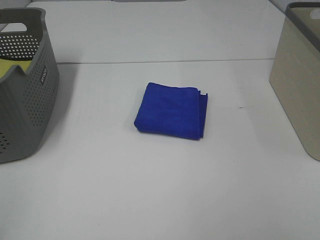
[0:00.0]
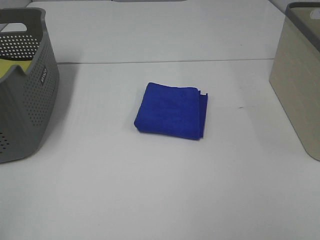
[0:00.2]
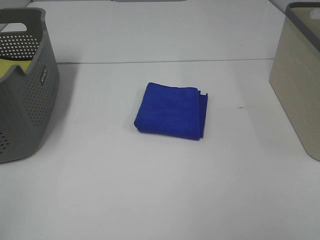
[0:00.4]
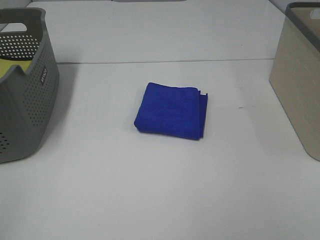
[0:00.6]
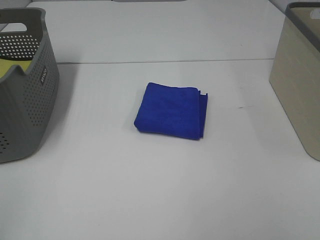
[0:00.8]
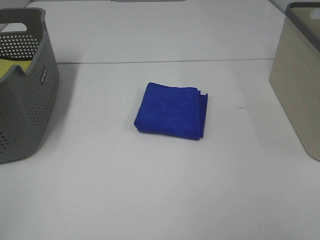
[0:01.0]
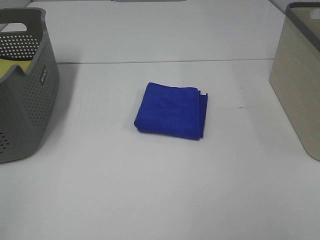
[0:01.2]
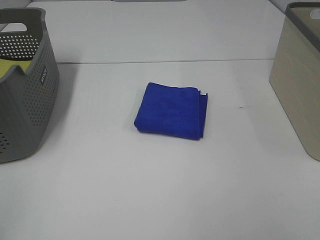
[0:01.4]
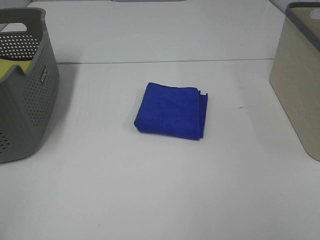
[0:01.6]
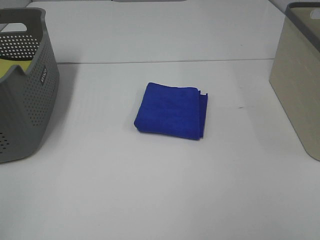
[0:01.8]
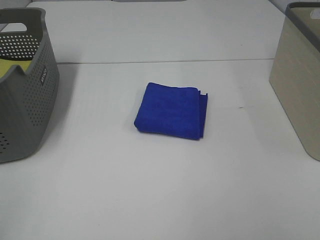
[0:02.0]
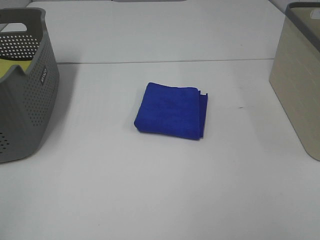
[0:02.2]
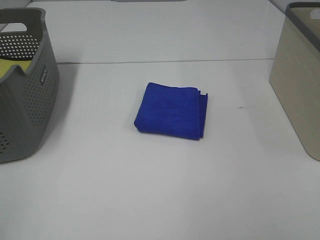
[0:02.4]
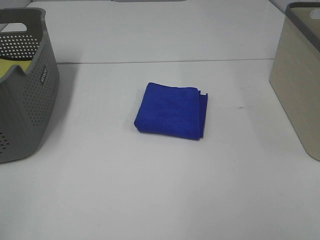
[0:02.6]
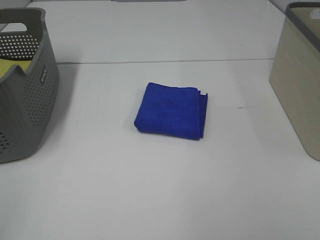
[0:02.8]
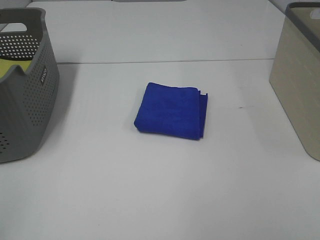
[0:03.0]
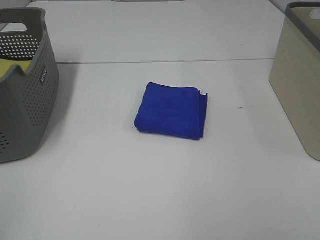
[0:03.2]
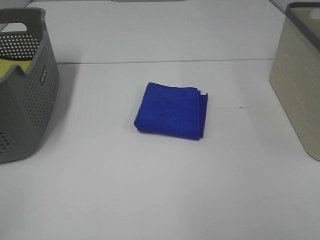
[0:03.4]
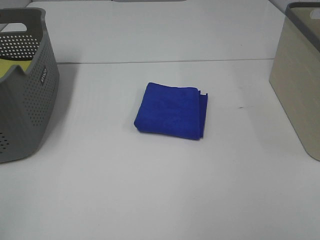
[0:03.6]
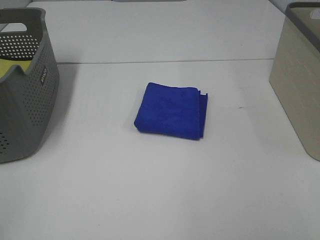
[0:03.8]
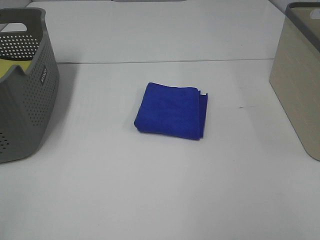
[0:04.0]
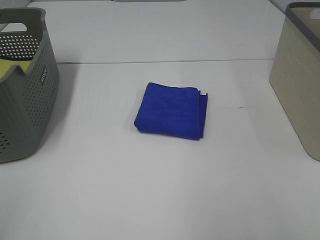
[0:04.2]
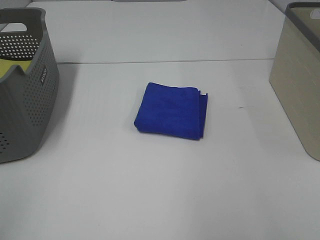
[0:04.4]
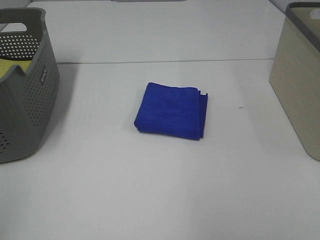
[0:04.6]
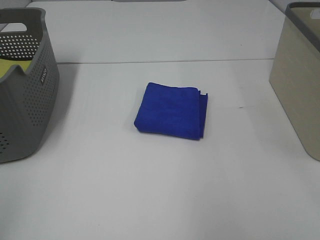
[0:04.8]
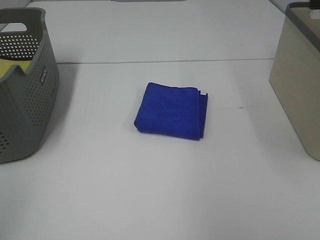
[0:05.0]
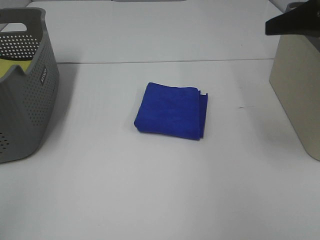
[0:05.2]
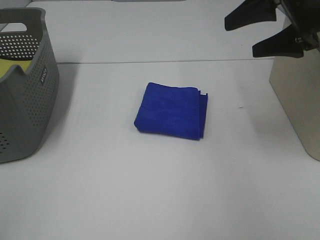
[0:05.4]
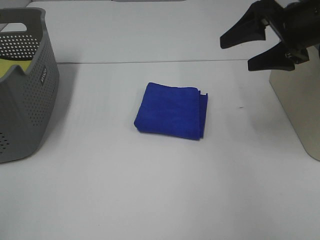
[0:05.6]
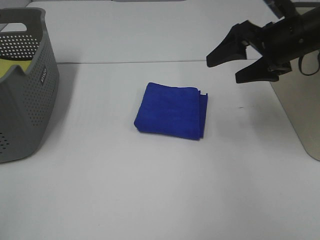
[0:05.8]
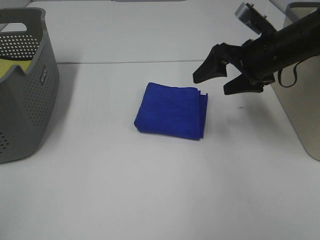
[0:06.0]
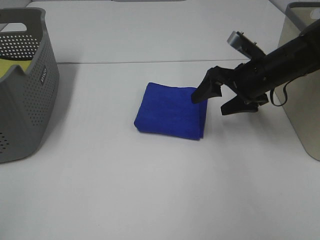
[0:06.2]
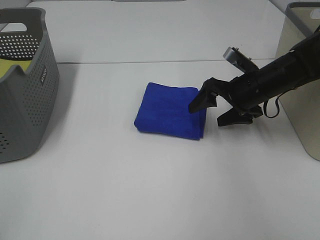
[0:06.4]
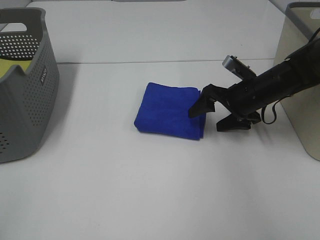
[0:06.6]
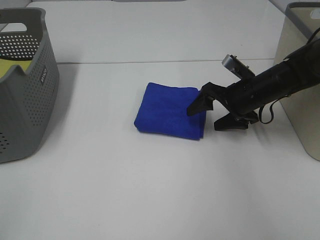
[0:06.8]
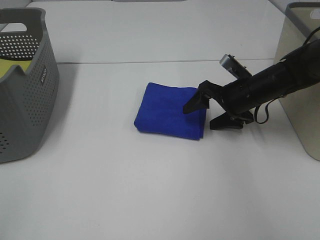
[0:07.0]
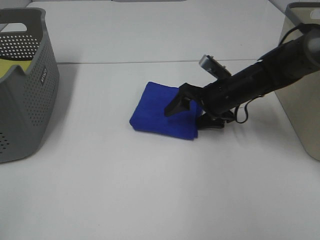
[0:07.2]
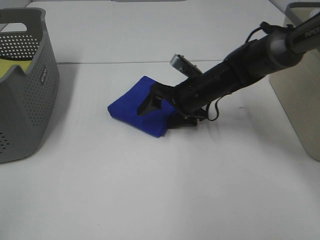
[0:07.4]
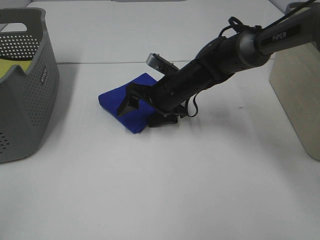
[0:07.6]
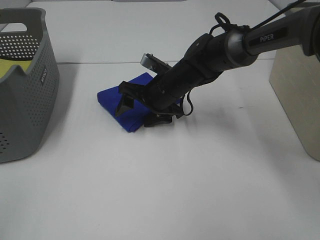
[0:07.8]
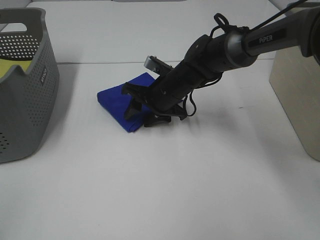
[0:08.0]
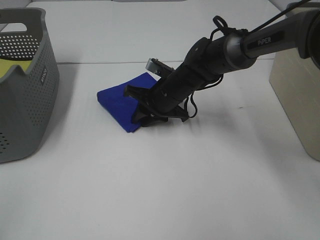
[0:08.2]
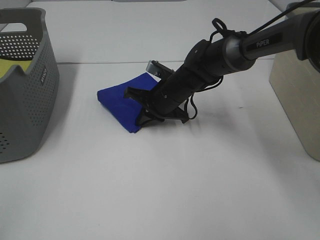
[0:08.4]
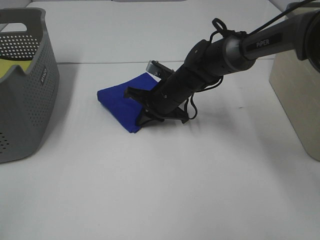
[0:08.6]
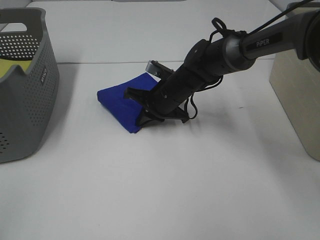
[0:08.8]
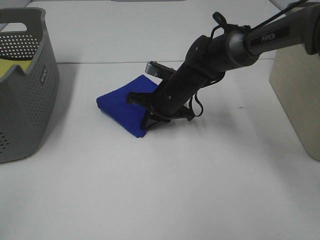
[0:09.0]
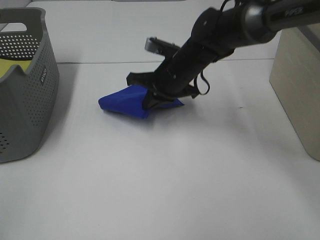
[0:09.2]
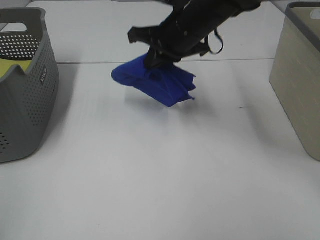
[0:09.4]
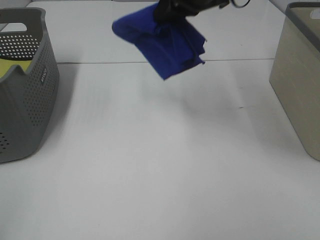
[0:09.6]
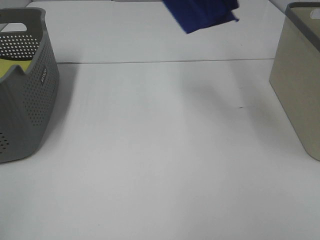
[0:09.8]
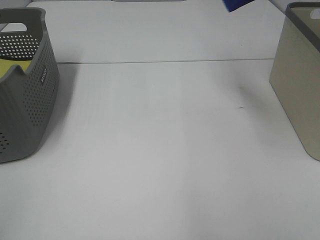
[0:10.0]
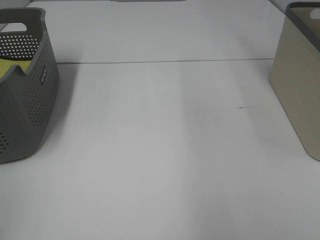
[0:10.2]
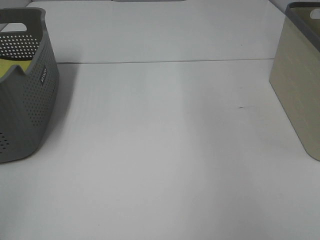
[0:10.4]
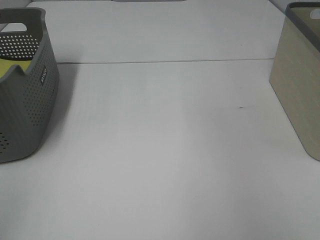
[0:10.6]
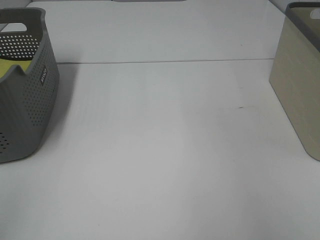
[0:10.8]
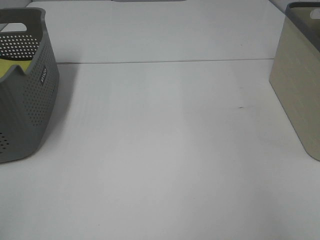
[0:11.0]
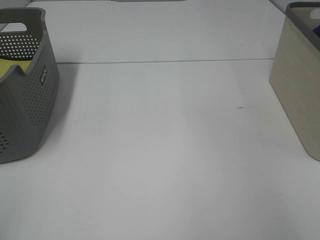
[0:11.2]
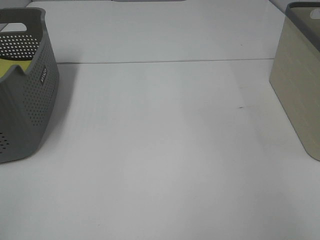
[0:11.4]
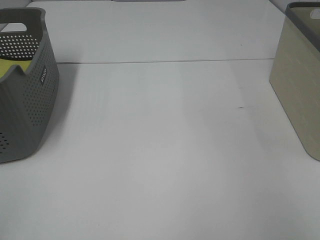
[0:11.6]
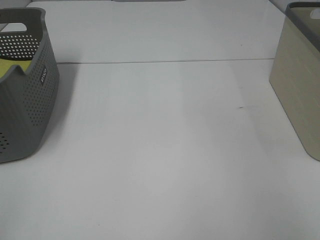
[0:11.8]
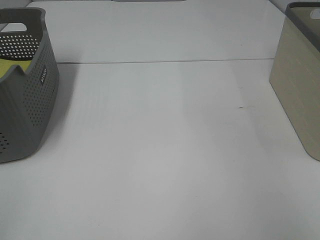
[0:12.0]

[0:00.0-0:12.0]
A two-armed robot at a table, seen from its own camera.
Step, 0:00.0 to 0:08.8: Right hand: grab the folded blue towel.
0:00.0 to 0:01.6: Both grippers stay about where they are.
0:04.4 to 0:06.0: The right gripper is displaced forward and downward by about 35 cm.
0:06.0 to 0:07.6: The right gripper shifts approximately 20 cm to the left and downward.
0:07.6 to 0:09.0: The right gripper closes up.
0:09.0 to 0:10.4: The right gripper heads upward and to the right, covering roughly 50 cm.

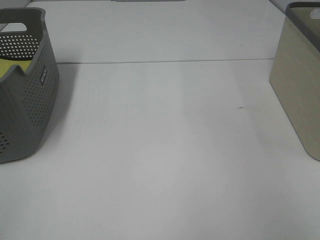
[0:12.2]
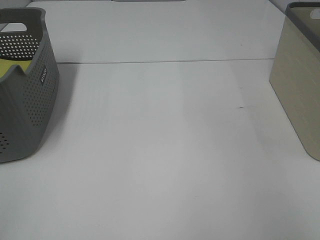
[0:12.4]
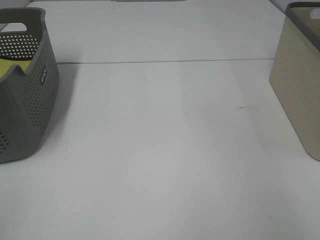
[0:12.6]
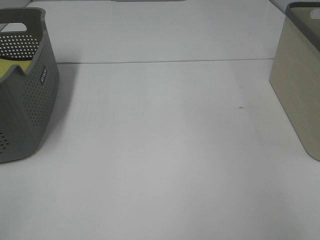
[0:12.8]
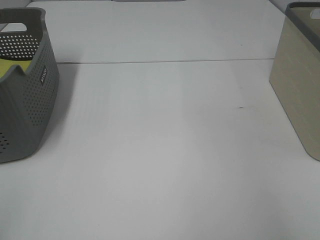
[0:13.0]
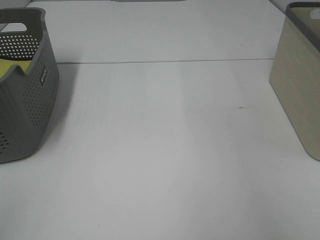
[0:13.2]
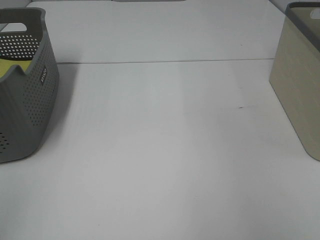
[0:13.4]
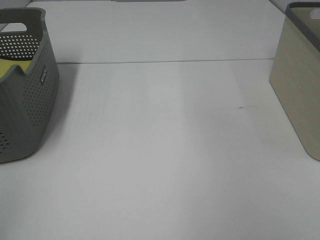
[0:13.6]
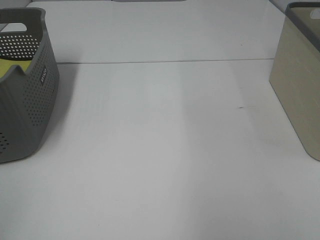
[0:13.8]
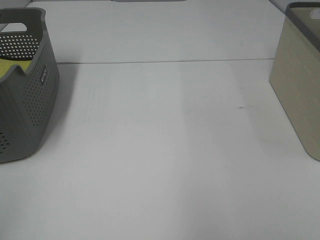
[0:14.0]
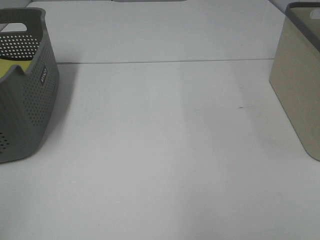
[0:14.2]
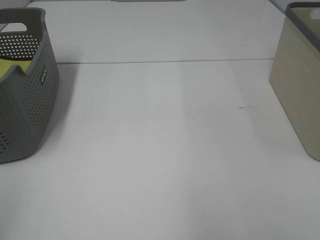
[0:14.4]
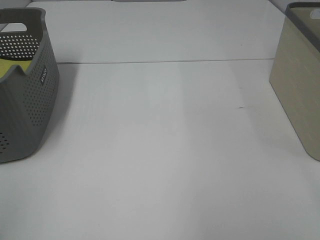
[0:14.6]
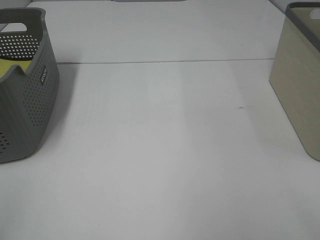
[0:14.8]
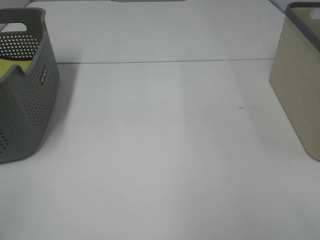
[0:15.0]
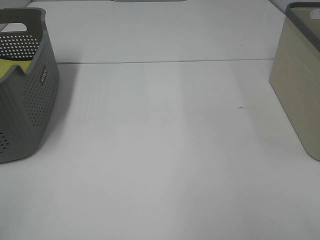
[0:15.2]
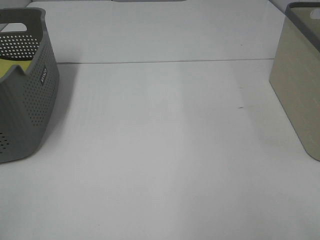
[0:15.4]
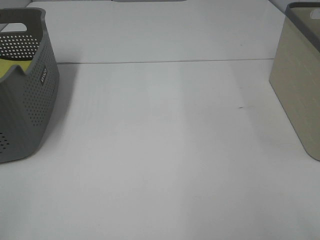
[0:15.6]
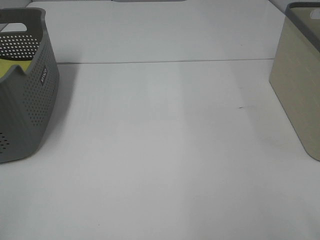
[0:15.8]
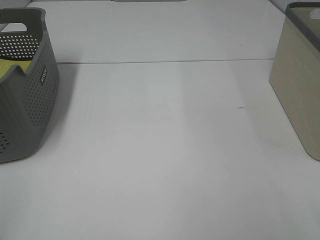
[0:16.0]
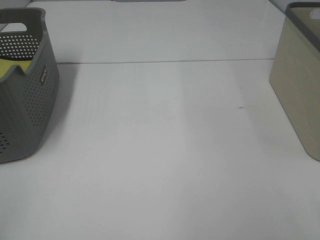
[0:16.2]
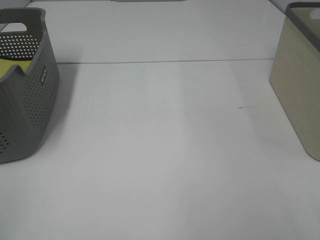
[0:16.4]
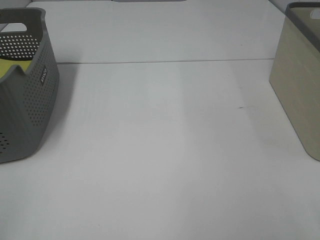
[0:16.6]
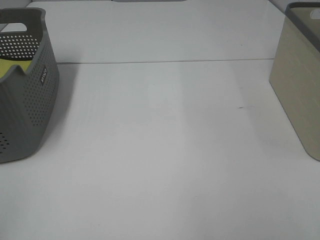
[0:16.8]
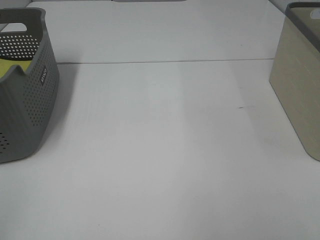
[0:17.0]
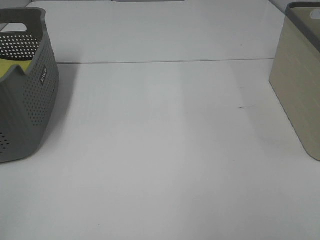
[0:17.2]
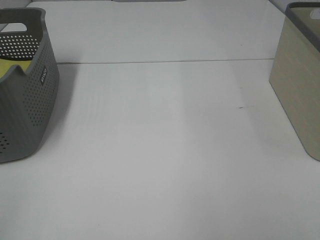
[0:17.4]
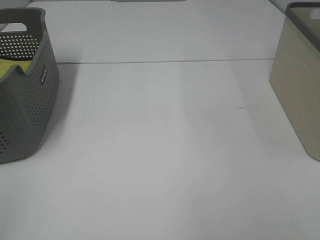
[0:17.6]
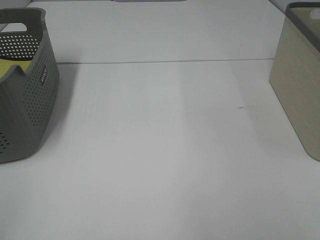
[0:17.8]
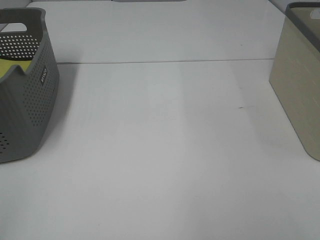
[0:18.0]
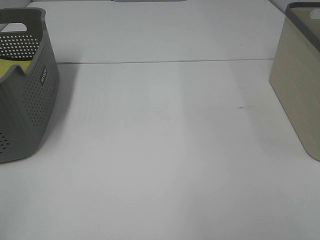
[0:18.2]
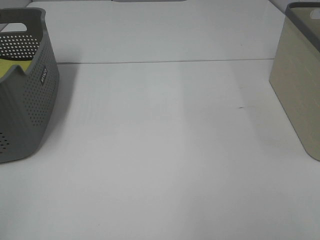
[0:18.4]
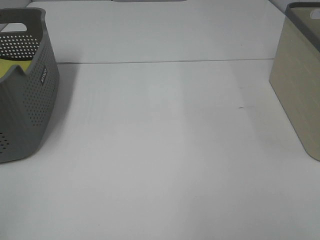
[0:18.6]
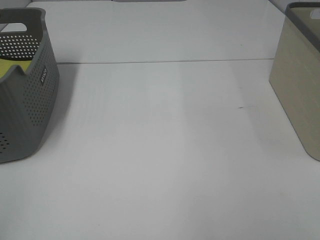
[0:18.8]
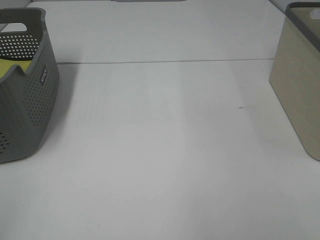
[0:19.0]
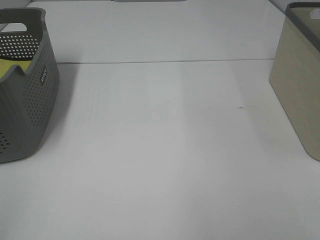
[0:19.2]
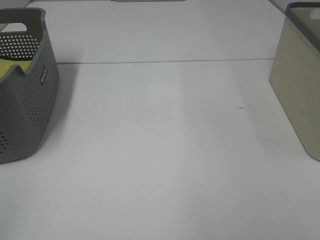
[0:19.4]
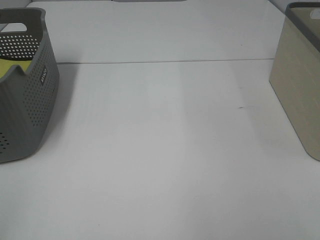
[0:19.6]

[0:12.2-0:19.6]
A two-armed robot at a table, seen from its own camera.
0:18.2 to 0:19.6: Neither gripper changes place.

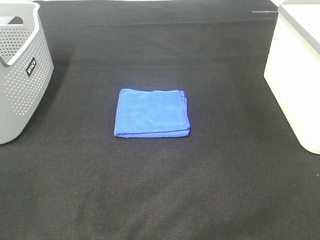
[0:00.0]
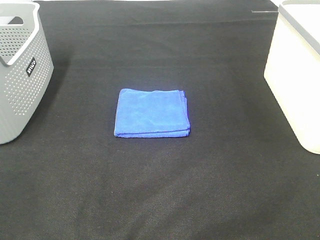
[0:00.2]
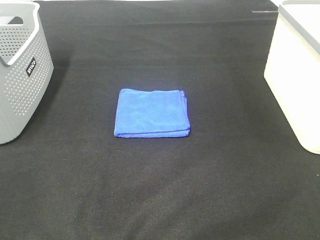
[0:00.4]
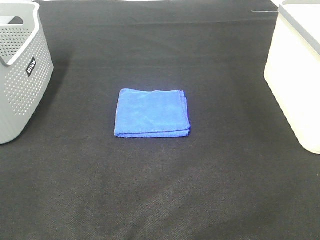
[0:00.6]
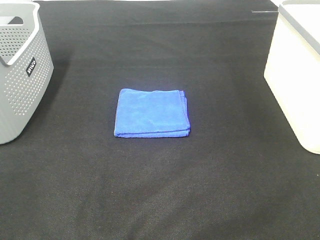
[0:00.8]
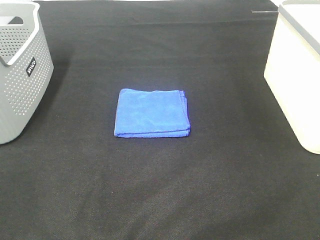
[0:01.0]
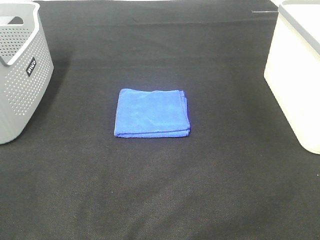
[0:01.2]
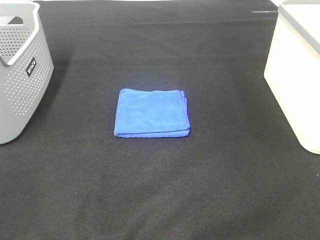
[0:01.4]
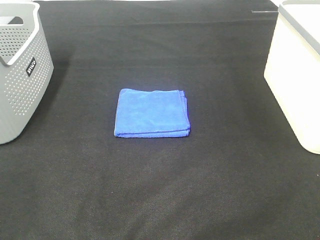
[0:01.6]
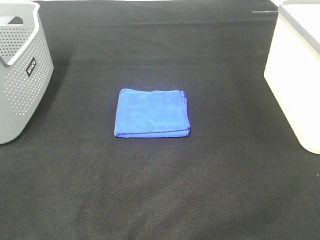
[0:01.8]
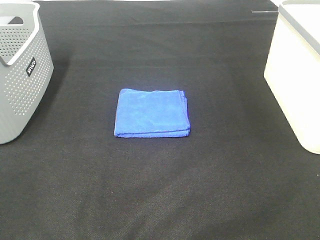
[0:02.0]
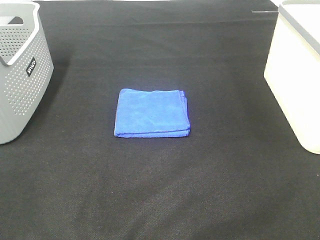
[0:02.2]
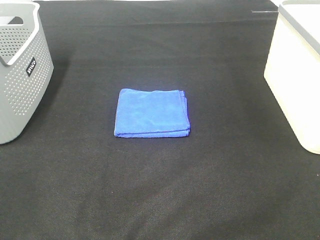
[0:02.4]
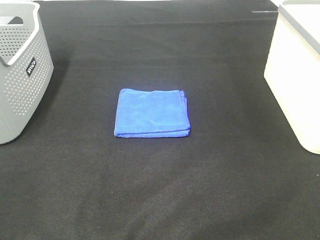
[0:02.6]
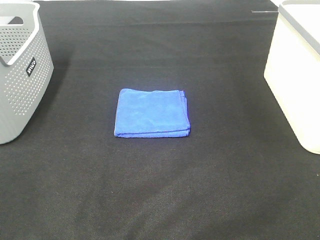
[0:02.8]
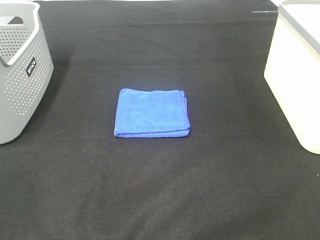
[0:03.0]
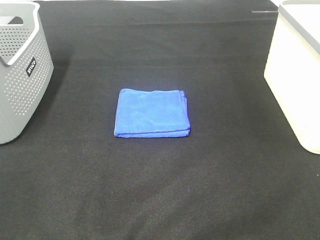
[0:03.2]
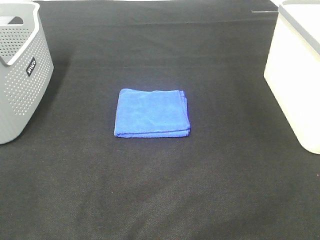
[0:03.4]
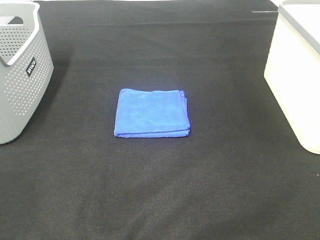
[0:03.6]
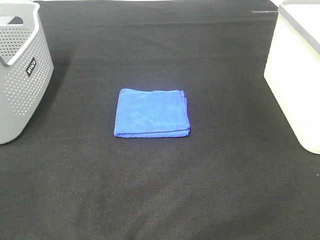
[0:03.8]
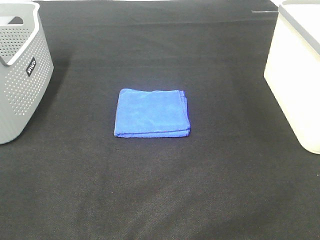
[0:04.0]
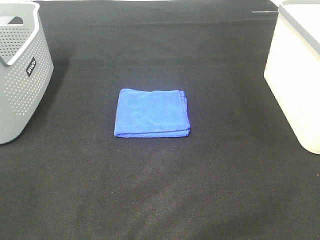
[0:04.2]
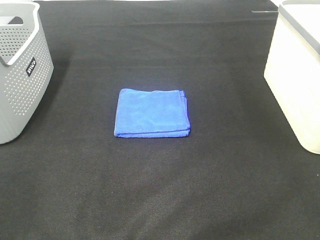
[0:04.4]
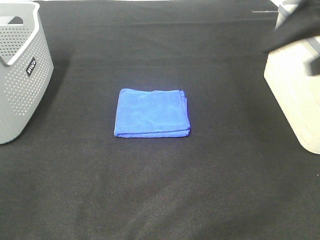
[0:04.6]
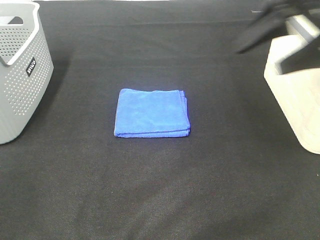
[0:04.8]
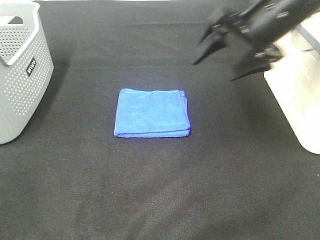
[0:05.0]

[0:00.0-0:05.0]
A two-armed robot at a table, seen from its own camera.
0:00.0 to 0:03.4: The two grippers keep their place.
0:03.4 to 0:05.0: The right gripper shifts roughly 35 cm forward.
